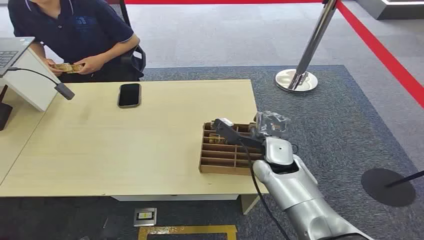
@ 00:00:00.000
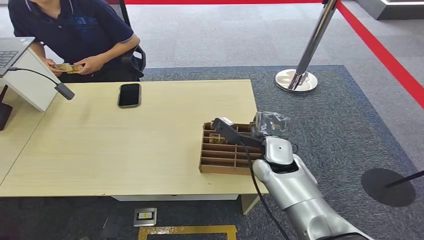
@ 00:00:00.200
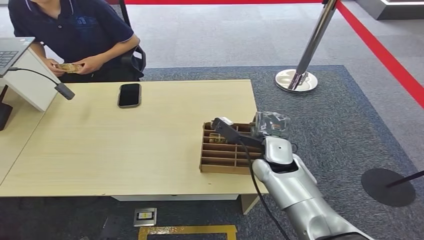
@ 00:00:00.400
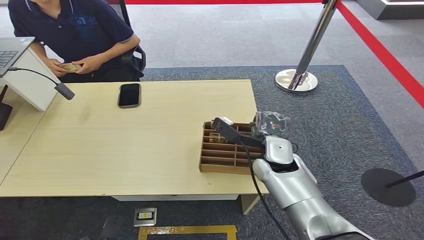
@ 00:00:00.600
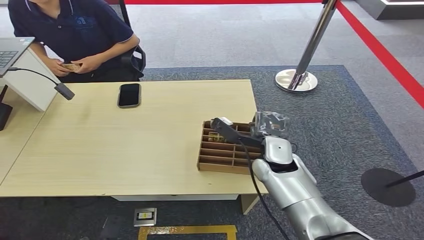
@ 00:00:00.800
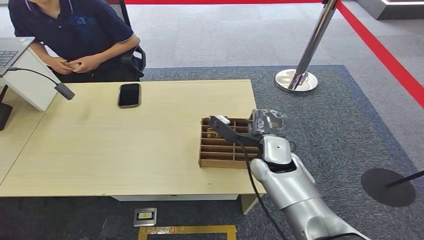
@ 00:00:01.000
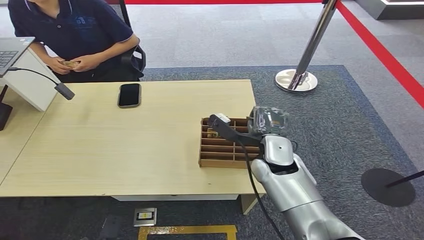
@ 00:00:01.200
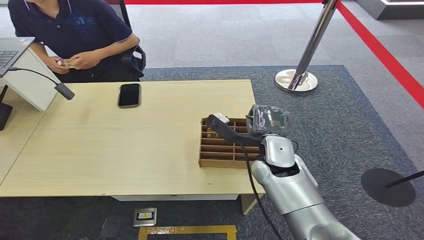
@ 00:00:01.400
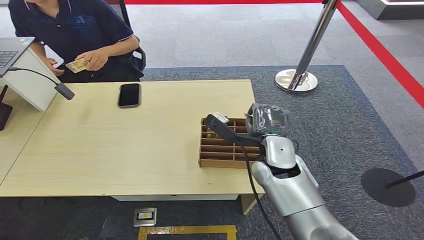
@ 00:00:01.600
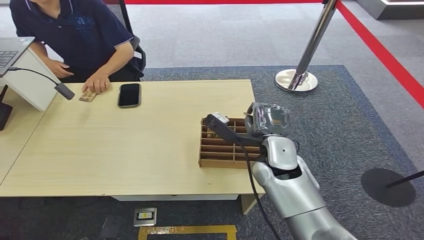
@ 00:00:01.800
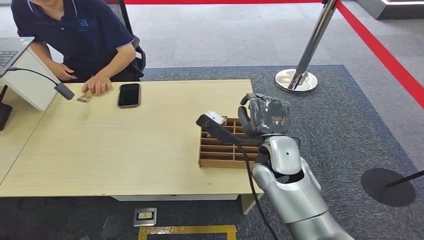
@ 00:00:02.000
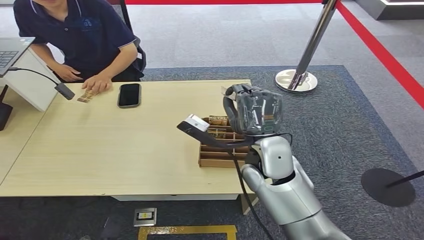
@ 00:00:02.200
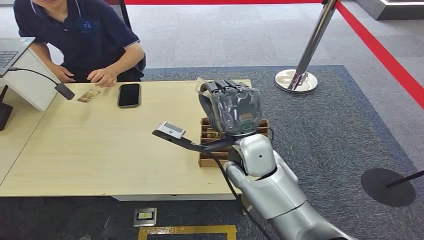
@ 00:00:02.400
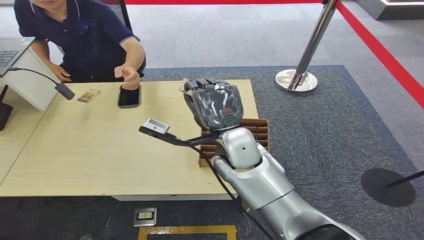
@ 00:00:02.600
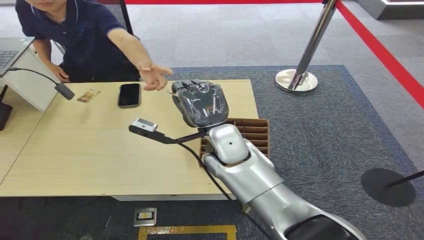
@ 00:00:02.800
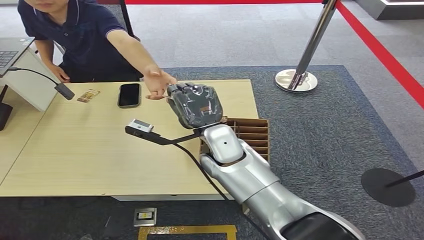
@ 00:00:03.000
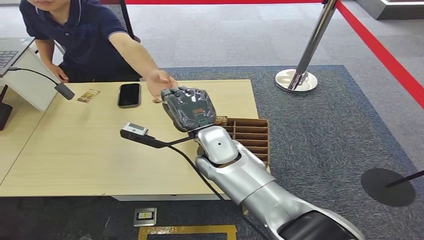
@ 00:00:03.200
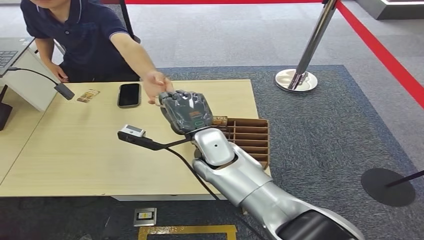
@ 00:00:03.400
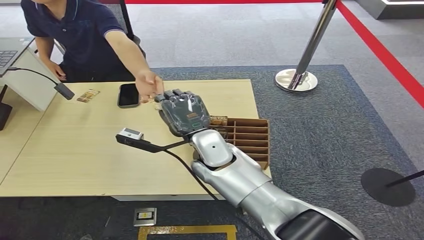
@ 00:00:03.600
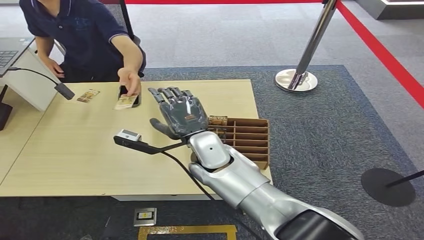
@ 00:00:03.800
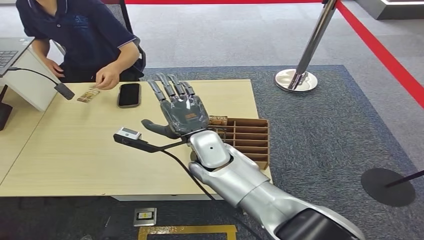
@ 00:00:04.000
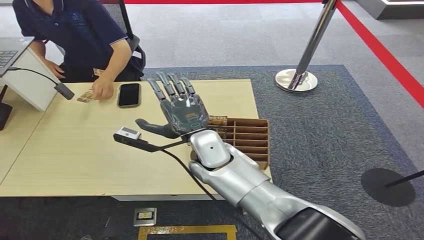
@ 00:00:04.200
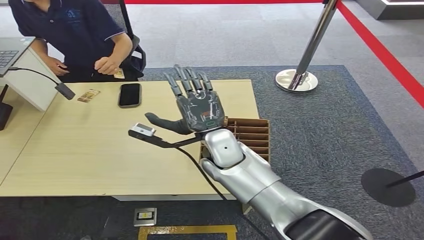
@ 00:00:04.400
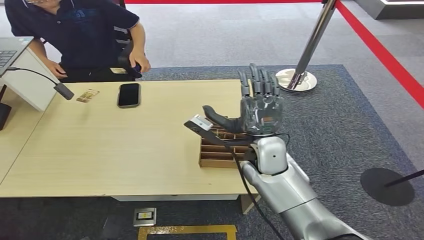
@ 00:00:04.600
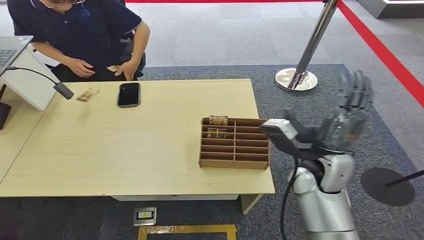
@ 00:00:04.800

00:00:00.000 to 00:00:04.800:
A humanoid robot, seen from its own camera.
Step, 00:00:00.000 to 00:00:01.800: Pick up the room card from the card holder.
Step, 00:00:02.000 to 00:00:04.800: Hand the room card to the target.
00:00:01.600 to 00:00:03.200: The right hand moves to the left, approximately 10 cm.
